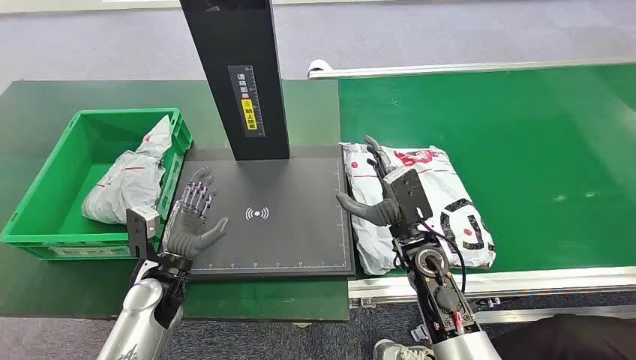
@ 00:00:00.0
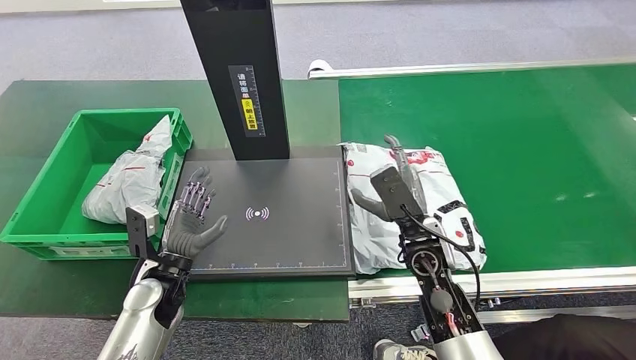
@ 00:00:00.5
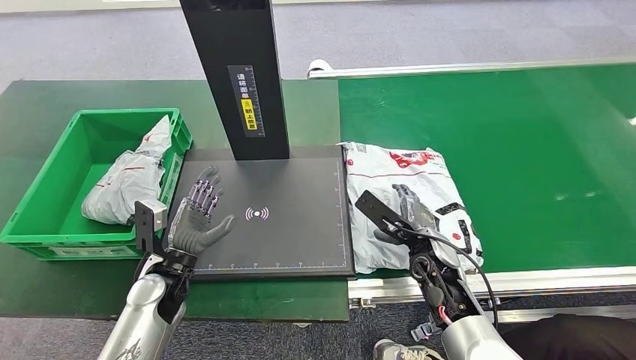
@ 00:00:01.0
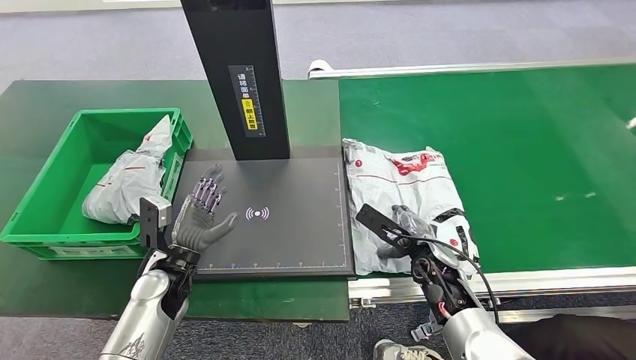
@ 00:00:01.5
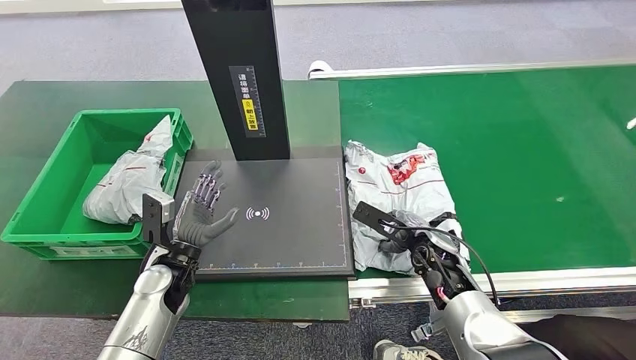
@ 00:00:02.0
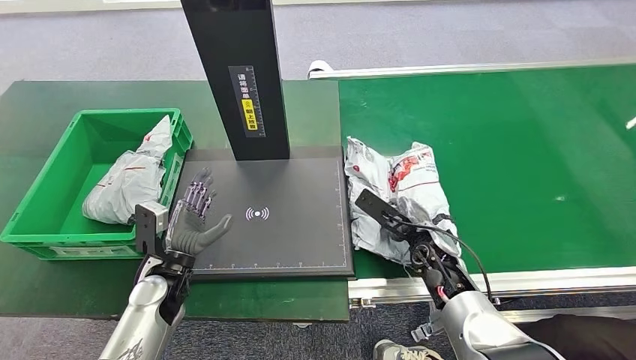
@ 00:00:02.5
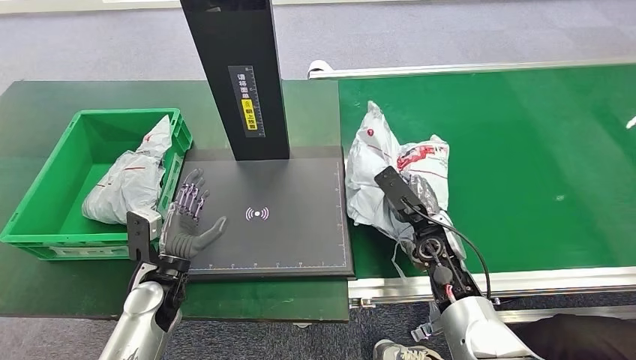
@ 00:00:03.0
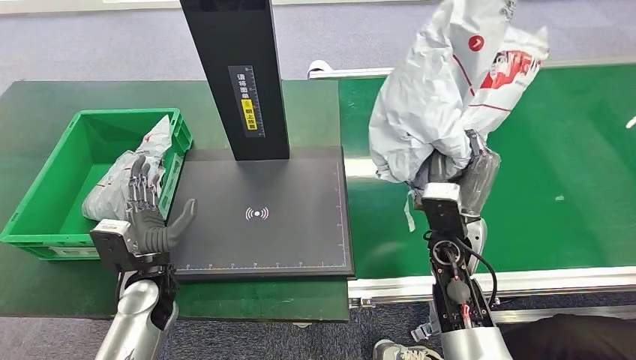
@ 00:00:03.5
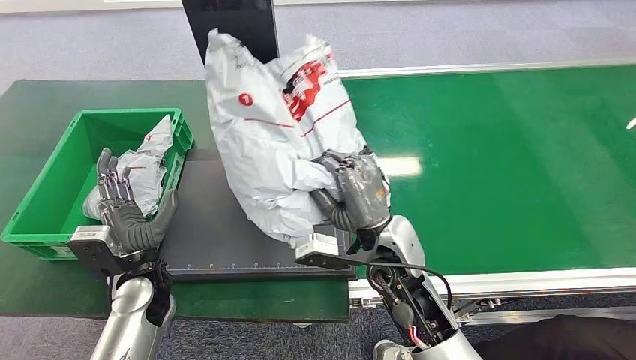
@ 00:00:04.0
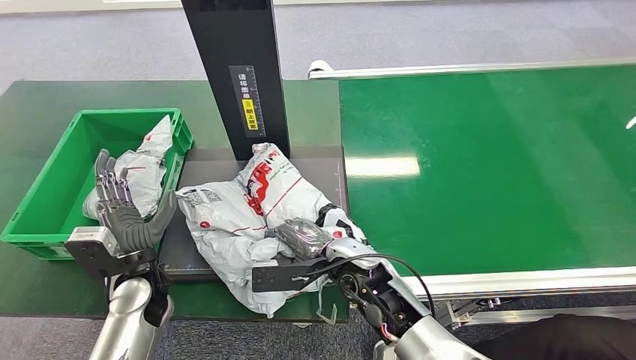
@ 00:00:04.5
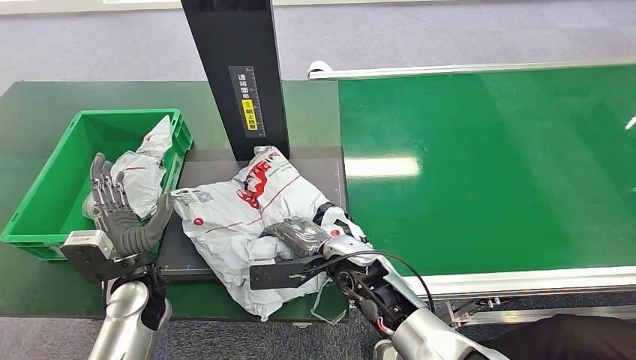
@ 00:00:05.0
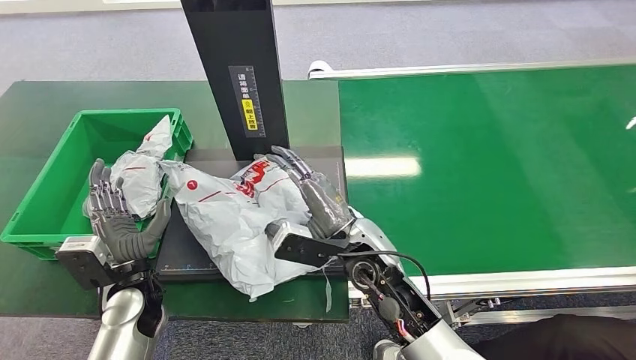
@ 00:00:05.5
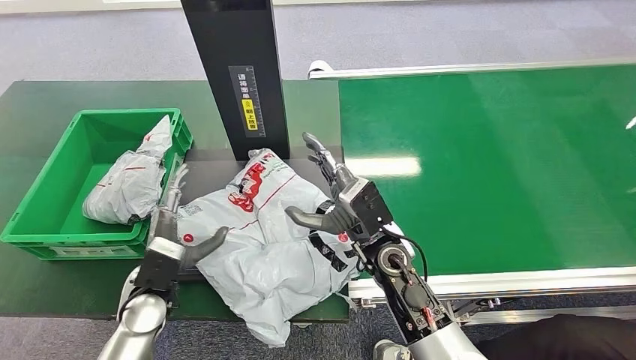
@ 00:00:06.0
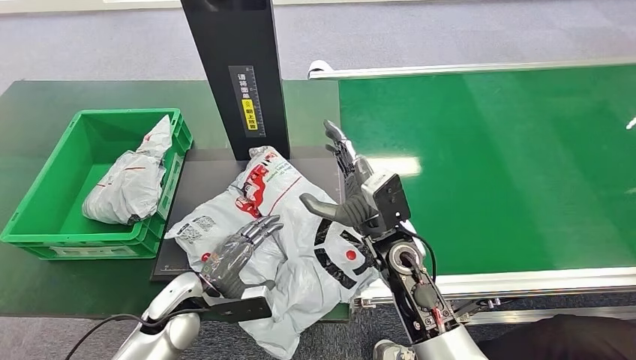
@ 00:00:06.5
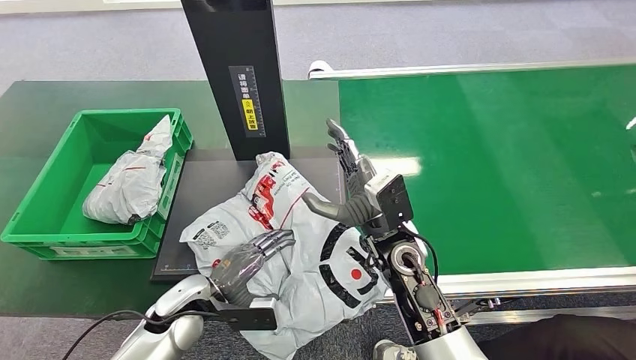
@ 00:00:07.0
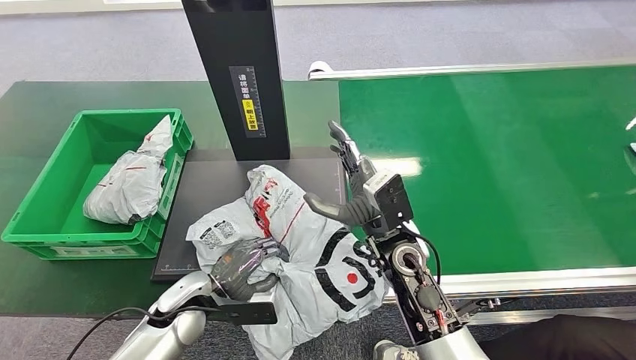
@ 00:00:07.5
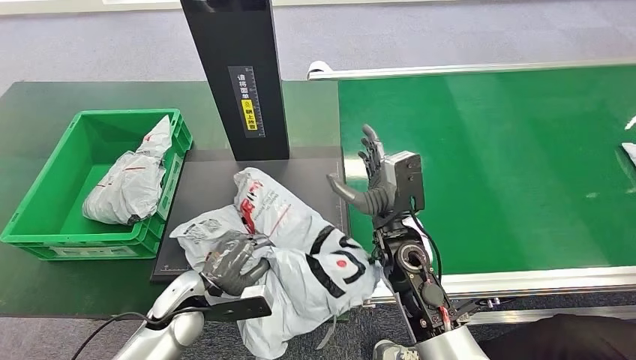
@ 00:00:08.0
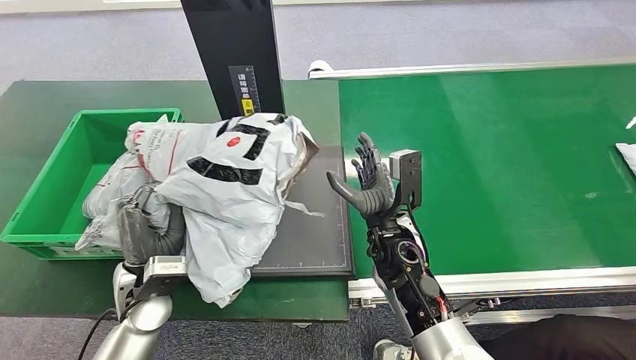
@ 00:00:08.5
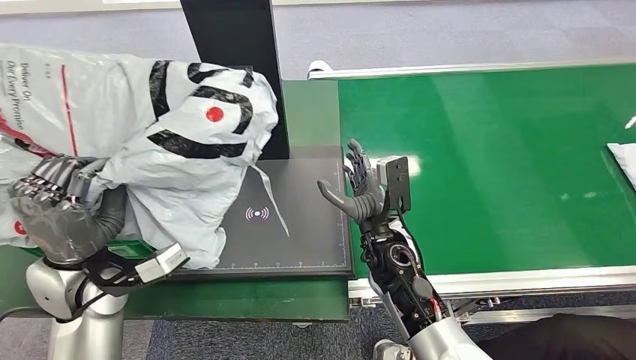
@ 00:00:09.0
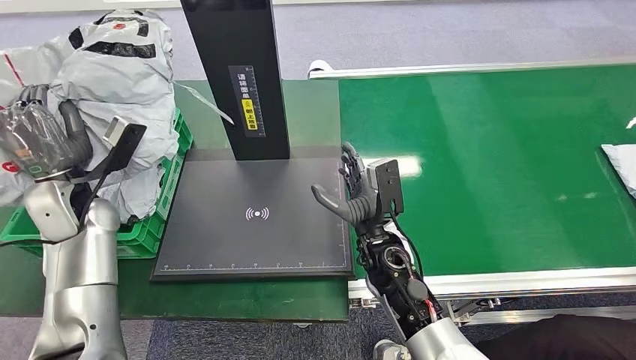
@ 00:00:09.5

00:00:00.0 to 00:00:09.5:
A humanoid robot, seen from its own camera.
Step, 00:00:00.0 to 00:00:03.5: Pick up the package from the conveyor belt.
Step, 00:00:04.0 to 00:00:05.5: Place the package onto the inbound machine.
Step, 00:00:06.0 to 00:00:08.5: Pick up the package from the inbound machine.

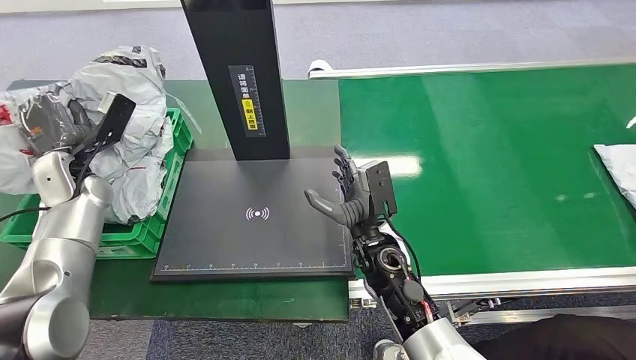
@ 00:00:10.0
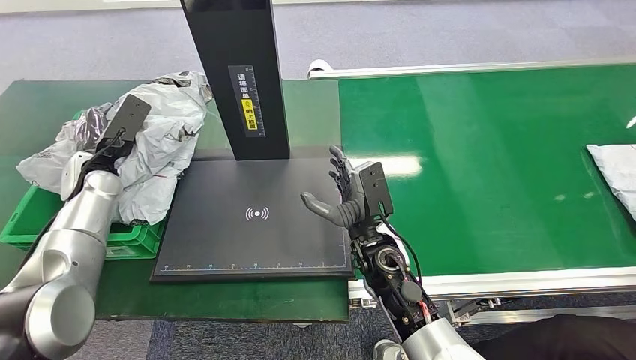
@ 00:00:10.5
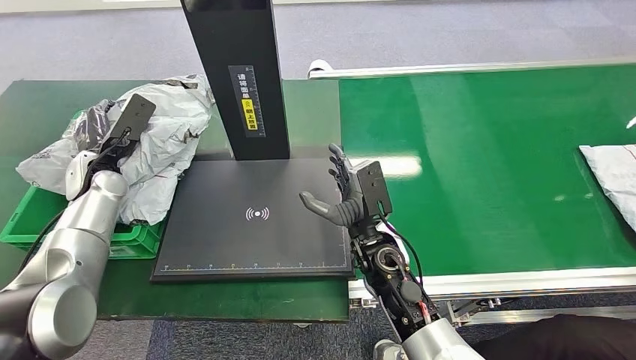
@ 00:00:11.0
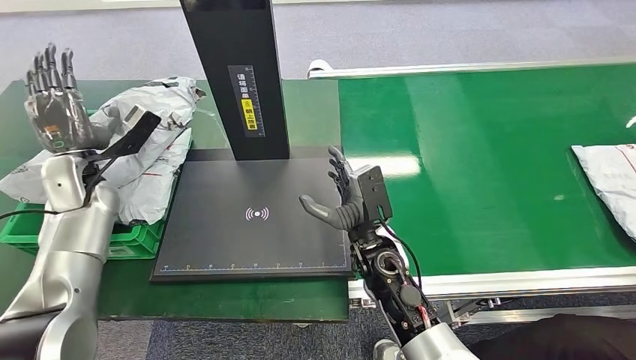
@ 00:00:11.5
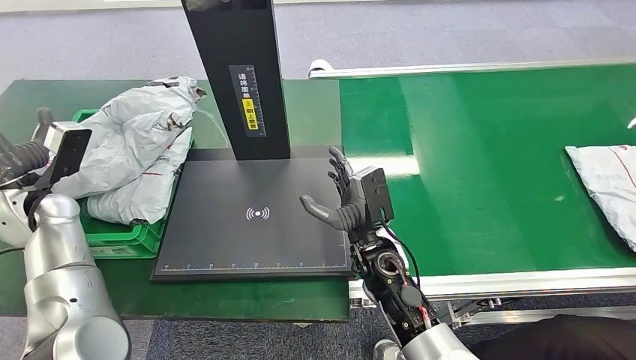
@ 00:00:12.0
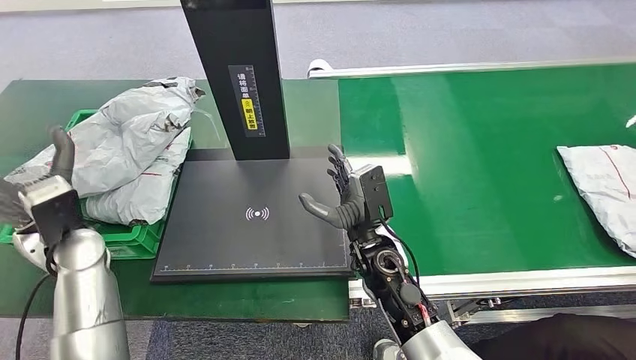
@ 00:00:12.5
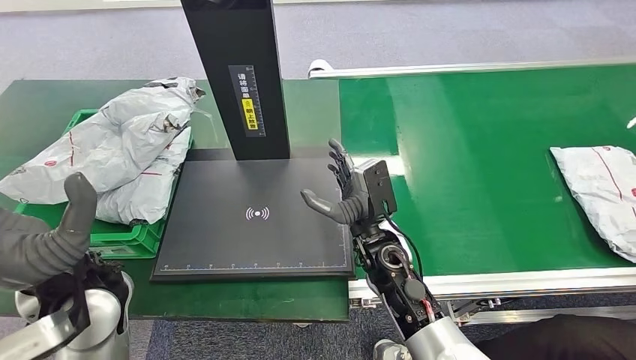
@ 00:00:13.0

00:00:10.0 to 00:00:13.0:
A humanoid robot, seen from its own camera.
Step, 00:00:10.0 to 00:00:13.0: Place the package into the parcel locker.
00:00:11.5 to 00:00:13.0: The left hand shifts roughly 20 cm backward and to the right.
